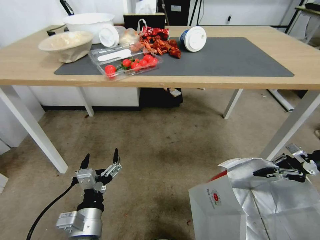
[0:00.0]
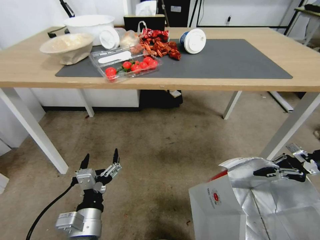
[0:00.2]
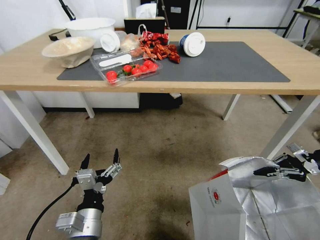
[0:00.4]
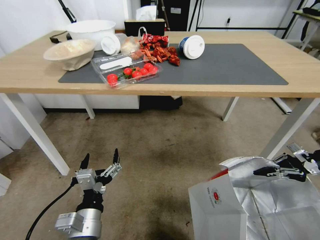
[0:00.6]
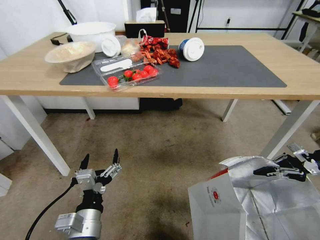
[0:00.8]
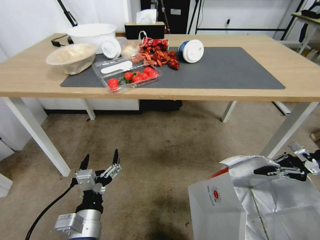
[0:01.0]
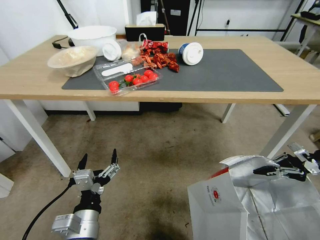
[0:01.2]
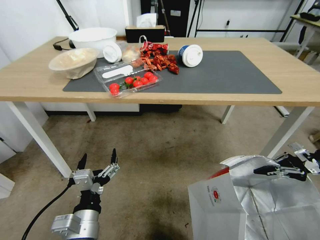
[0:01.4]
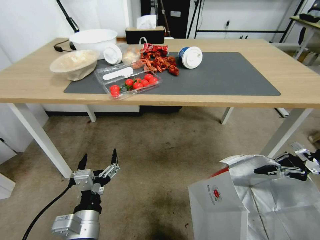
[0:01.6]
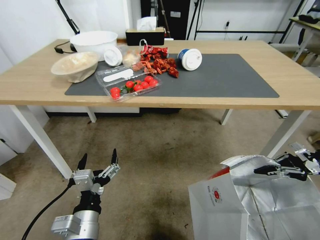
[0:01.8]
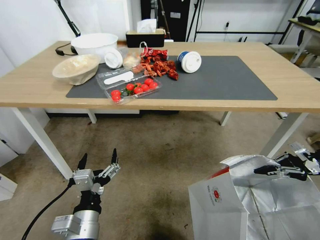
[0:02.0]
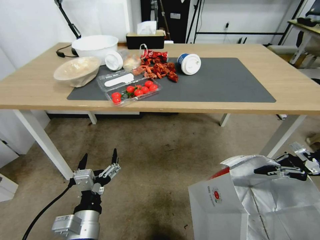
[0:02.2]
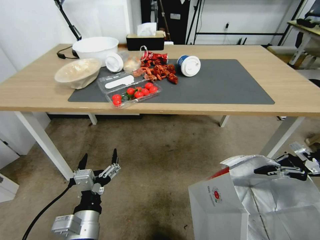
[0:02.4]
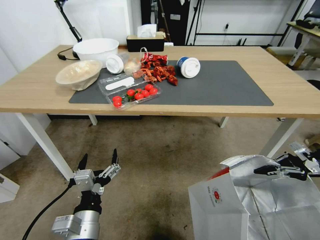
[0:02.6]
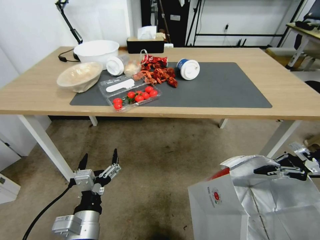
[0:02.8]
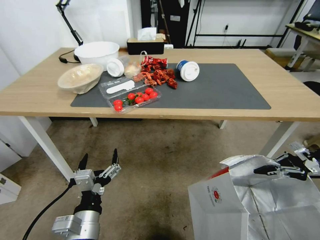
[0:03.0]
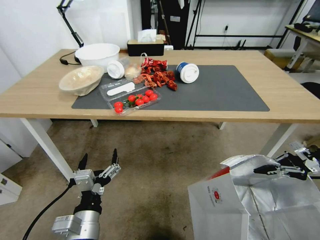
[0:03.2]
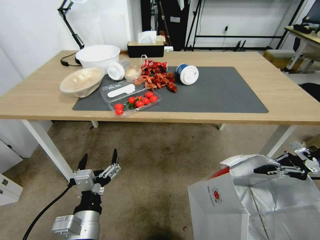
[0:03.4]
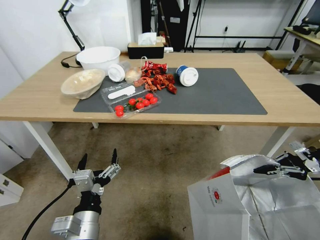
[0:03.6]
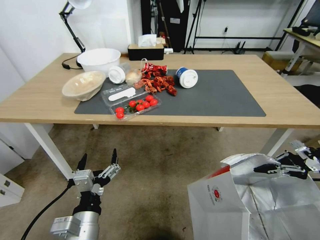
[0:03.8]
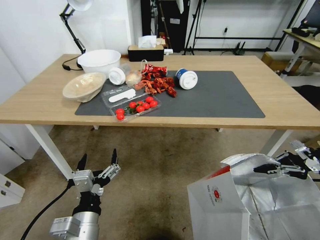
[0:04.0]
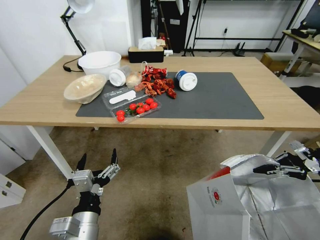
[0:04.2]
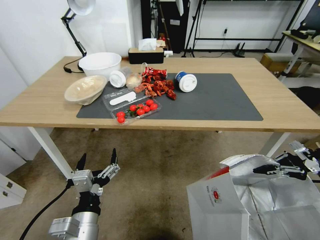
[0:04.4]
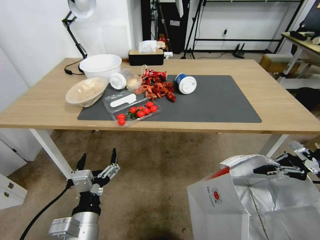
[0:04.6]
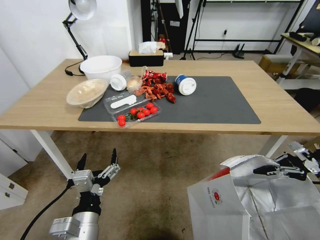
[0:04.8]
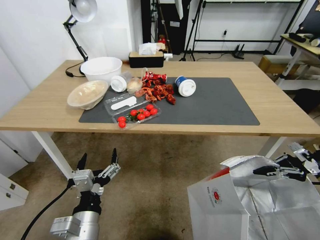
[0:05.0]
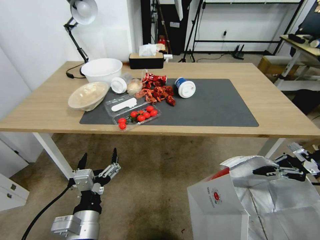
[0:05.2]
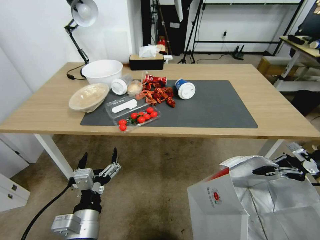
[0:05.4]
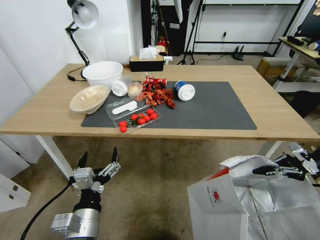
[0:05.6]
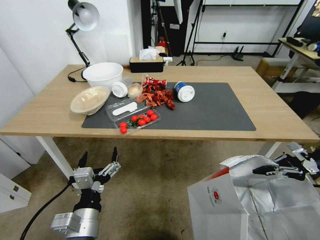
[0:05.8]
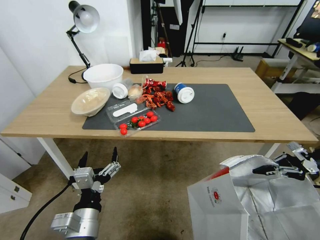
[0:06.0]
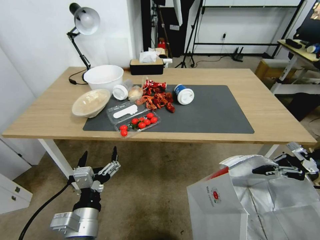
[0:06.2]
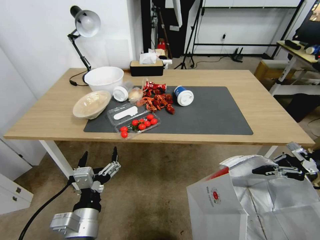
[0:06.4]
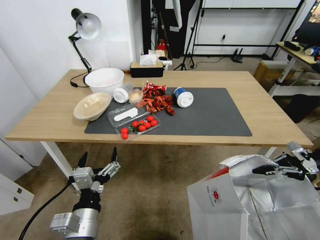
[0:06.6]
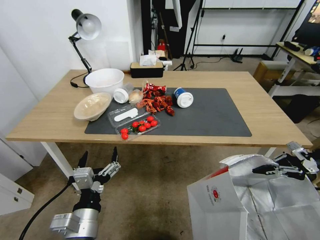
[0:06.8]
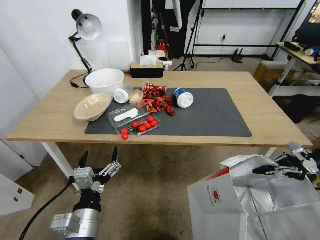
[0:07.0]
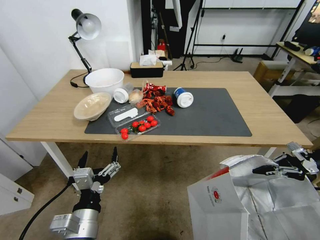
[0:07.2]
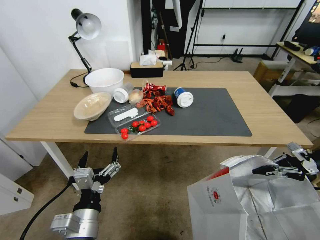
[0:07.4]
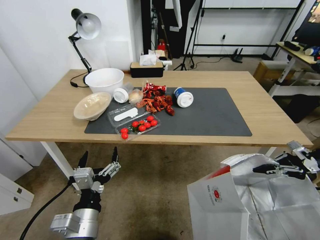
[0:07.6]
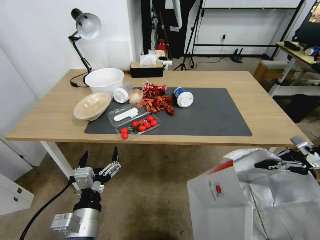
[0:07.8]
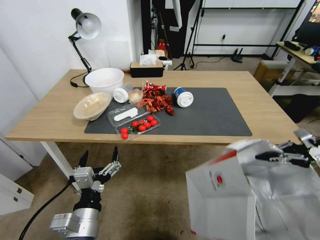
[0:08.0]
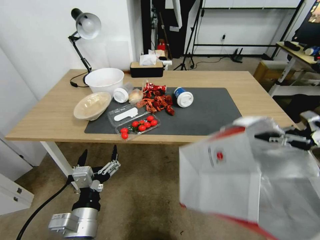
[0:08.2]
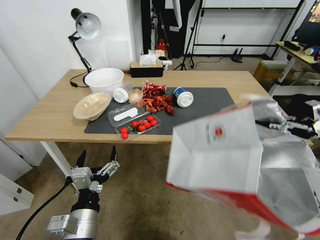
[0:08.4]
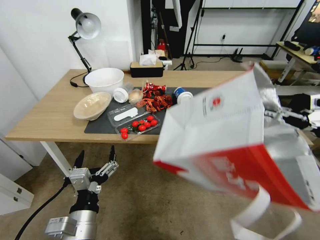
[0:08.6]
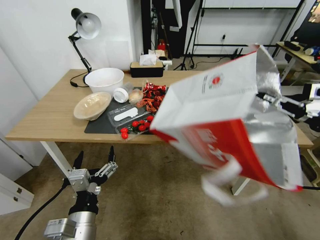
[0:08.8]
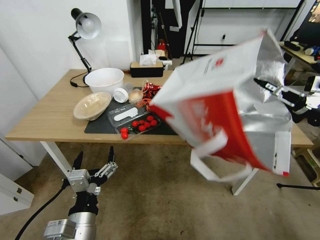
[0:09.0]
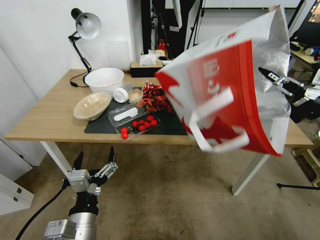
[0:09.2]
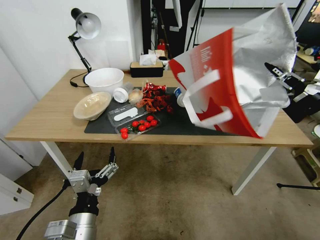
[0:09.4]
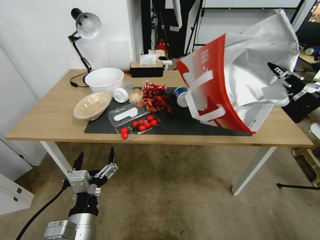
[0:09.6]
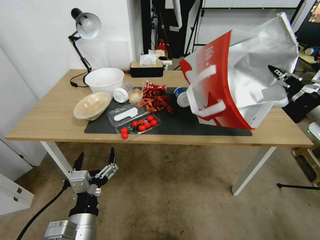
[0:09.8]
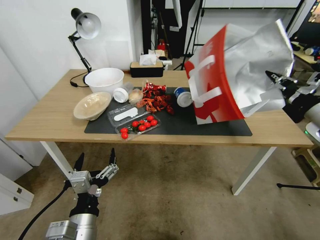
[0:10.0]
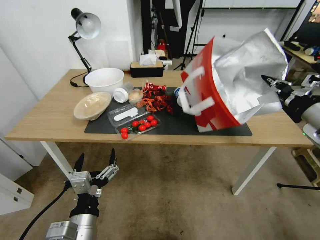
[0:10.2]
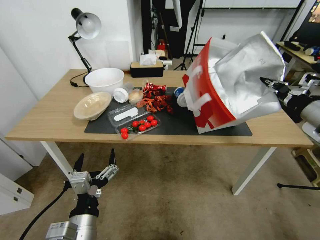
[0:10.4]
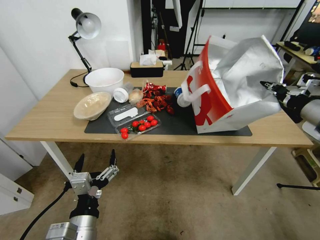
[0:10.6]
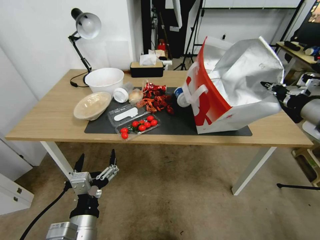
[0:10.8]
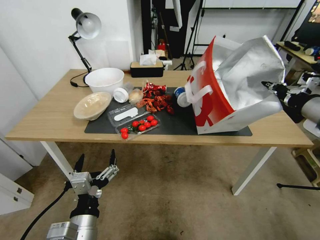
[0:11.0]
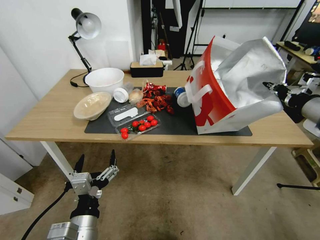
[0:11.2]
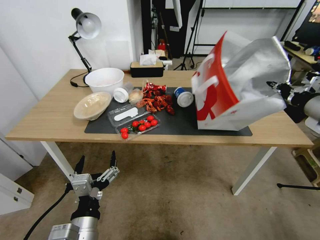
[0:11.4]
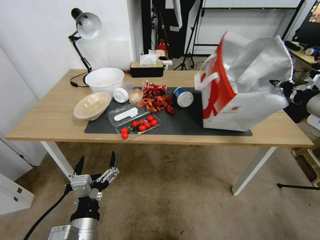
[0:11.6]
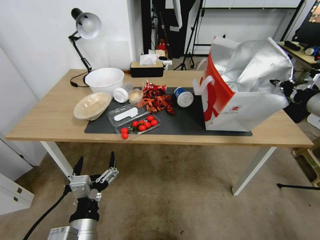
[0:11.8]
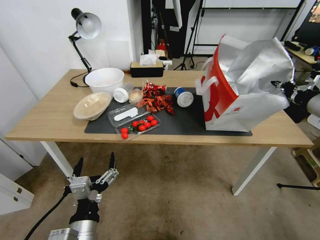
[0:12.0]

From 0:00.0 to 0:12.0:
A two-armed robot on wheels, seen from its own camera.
Task of the whole recording: Pick up the food delivery bag from the floor and place it on the table.
From 0:06.0 to 0:07.6: Neither gripper changes place.
From 0:07.6 to 0:09.0: The right gripper heads to the left and upward, covering approximately 10 cm.
From 0:09.0 to 0:10.4: The right gripper is displaced to the left by roughly 10 cm.
From 0:10.4 to 0:12.0: The grippers stay close to where they were, moving slightly.

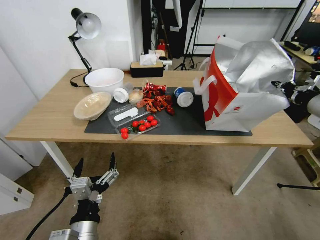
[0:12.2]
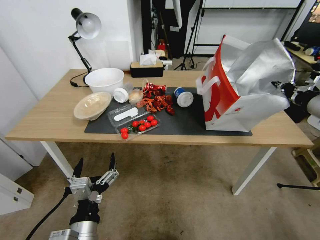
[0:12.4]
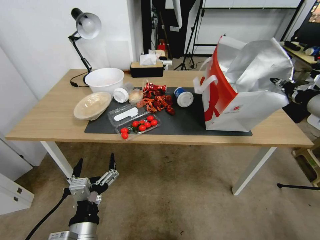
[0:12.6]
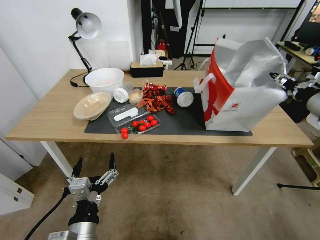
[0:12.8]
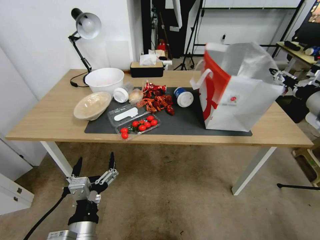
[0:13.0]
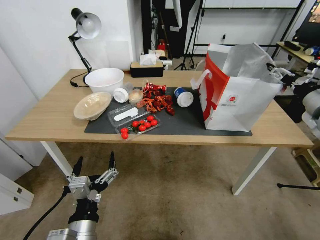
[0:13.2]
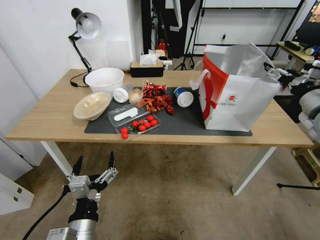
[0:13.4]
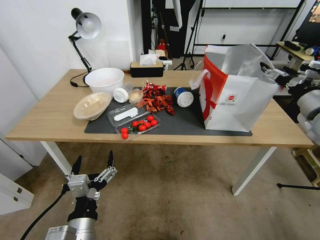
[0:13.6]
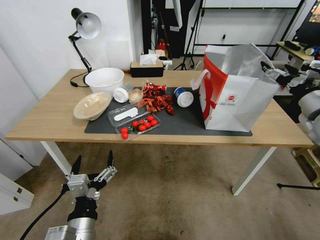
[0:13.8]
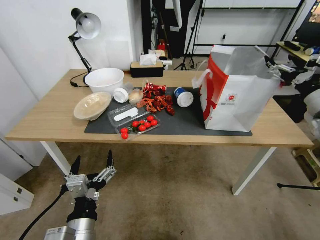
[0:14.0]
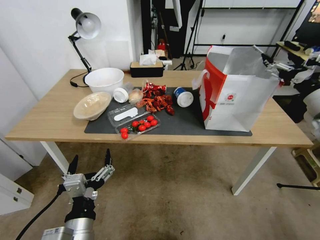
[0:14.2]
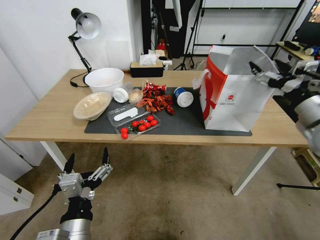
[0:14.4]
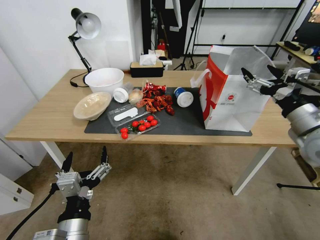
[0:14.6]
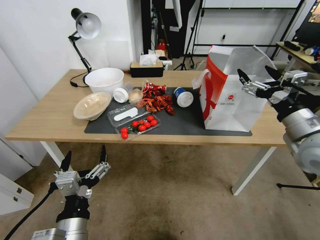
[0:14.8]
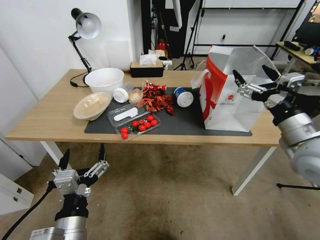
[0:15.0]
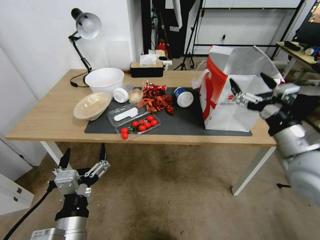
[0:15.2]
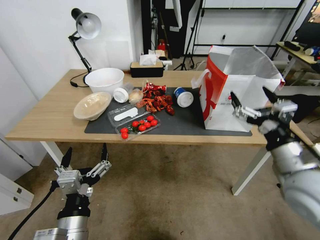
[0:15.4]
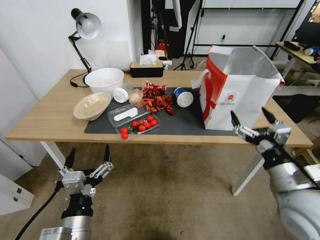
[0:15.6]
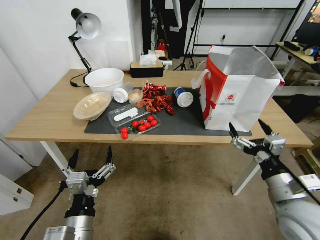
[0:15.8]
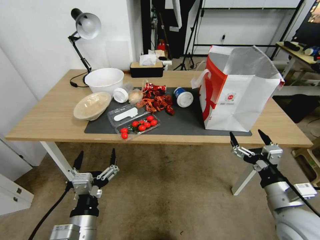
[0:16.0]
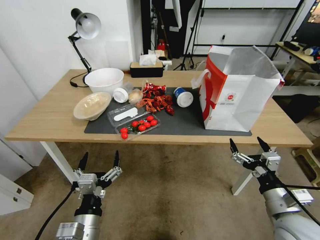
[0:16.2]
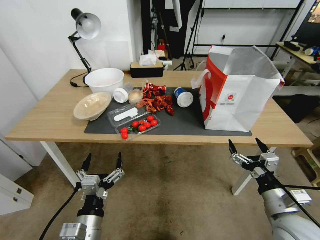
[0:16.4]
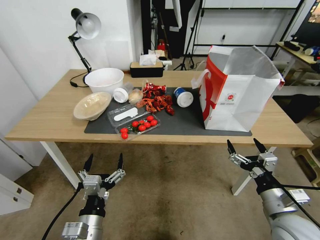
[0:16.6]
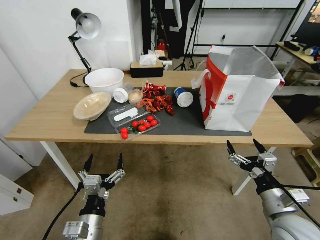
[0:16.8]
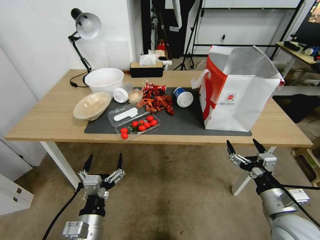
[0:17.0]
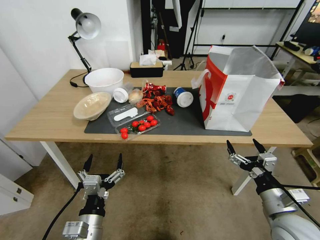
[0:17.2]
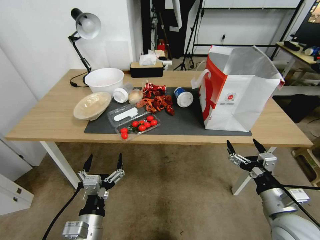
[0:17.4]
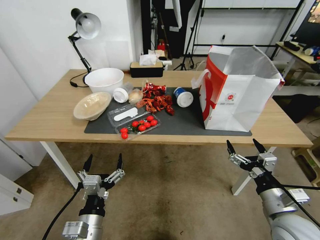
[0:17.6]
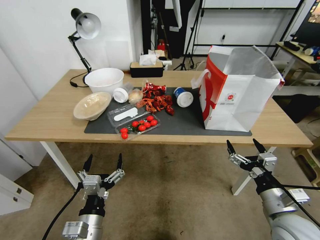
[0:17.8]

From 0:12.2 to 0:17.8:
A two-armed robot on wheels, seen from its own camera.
Task of the whole recording: Pick up the food delivery bag from the floor and place it on the table.
From 0:12.2 to 0:13.6: The right gripper opens up.
From 0:13.6 to 0:15.0: The right gripper moves to the left and backward, roughly 15 cm.
From 0:15.0 to 0:16.4: The left gripper travels downward by about 5 cm. The right gripper is displaced downward and backward by approximately 20 cm.
From 0:16.4 to 0:17.8: Both grippers stay put.
